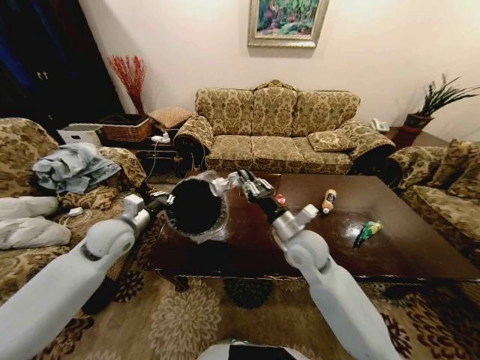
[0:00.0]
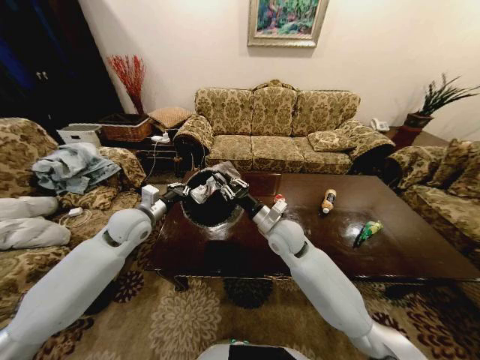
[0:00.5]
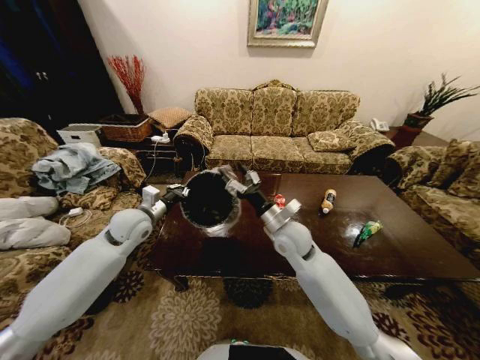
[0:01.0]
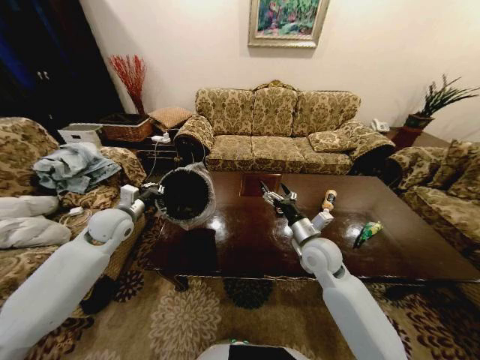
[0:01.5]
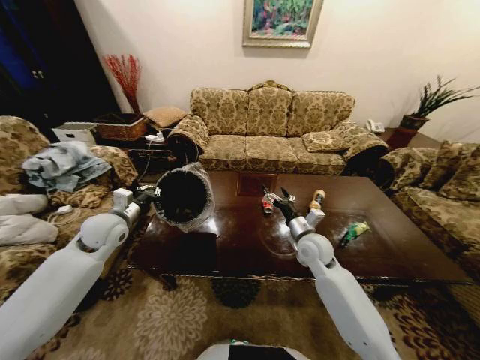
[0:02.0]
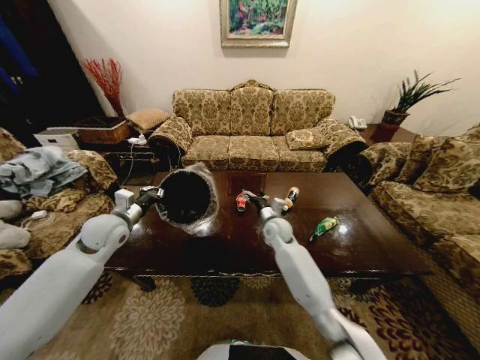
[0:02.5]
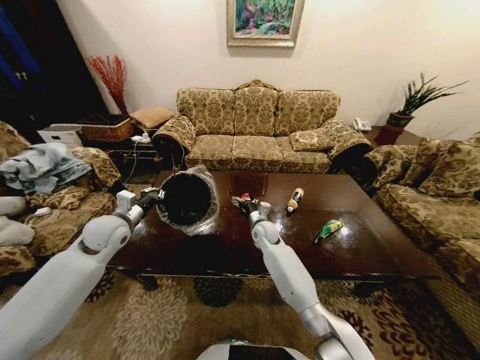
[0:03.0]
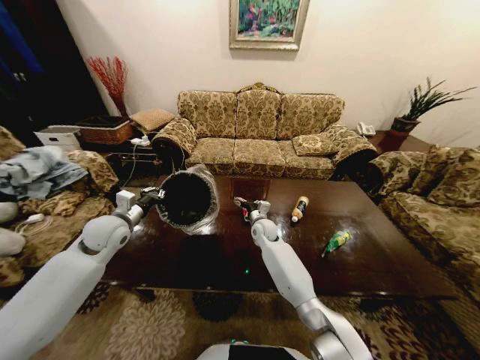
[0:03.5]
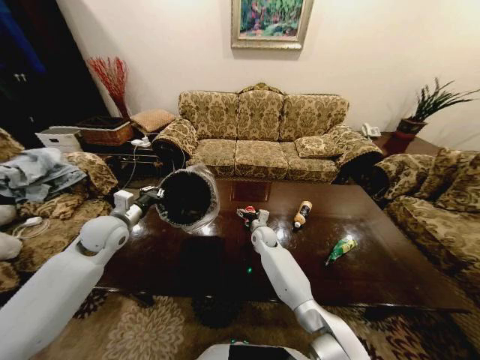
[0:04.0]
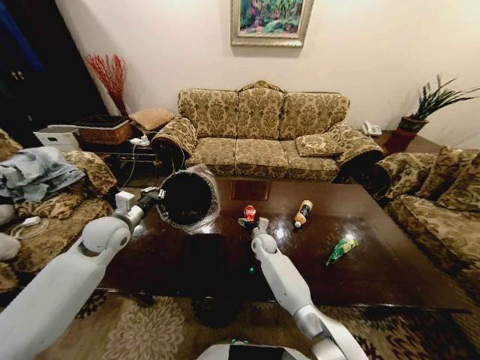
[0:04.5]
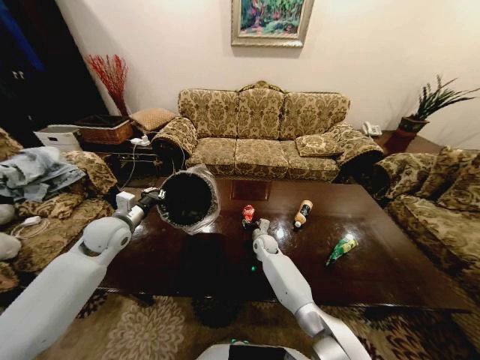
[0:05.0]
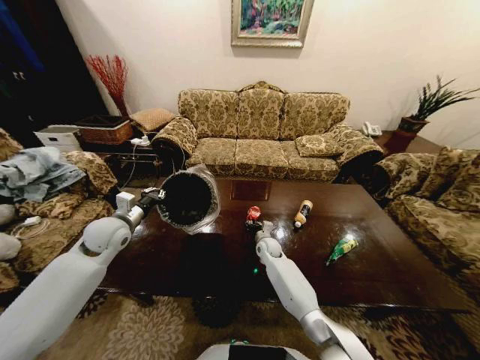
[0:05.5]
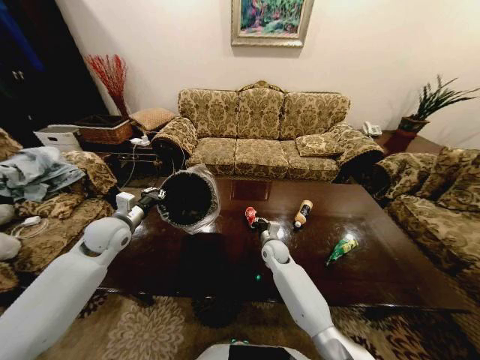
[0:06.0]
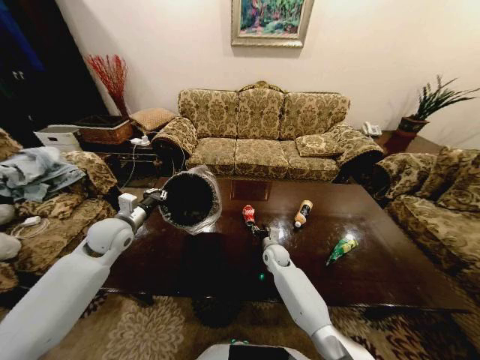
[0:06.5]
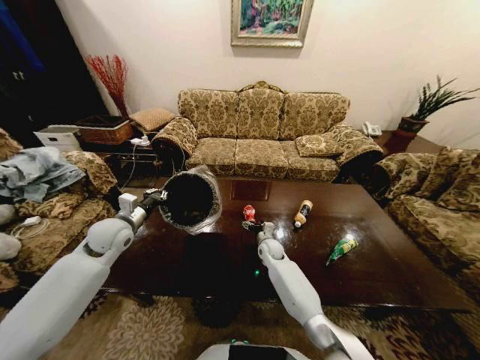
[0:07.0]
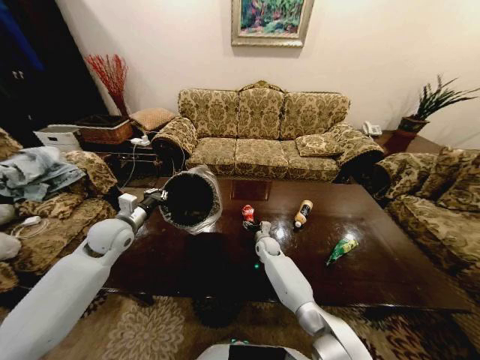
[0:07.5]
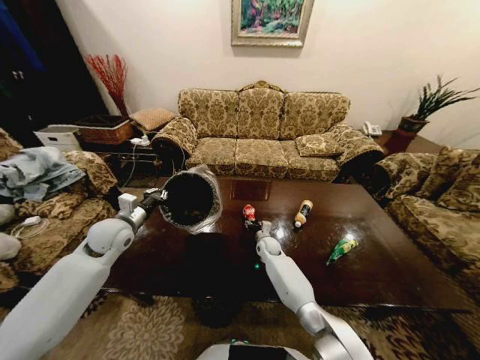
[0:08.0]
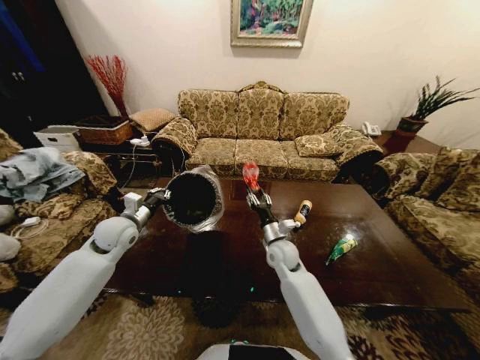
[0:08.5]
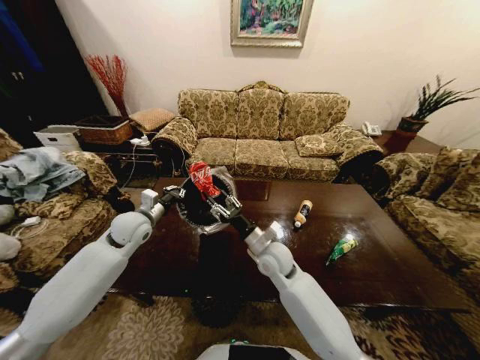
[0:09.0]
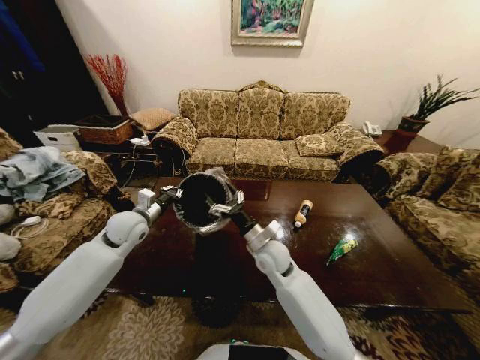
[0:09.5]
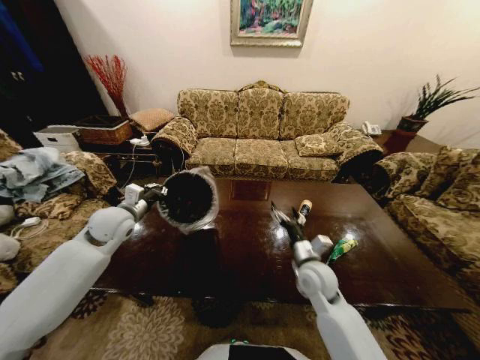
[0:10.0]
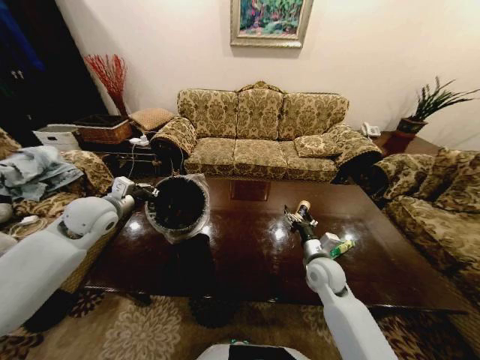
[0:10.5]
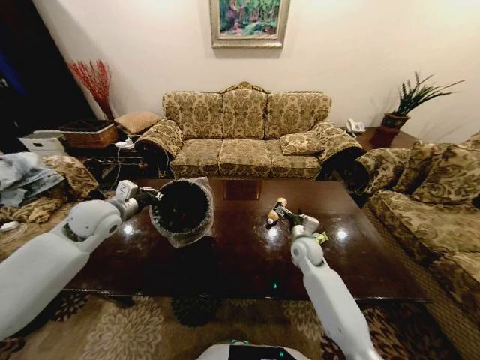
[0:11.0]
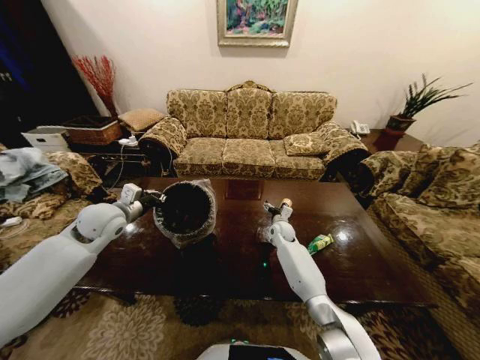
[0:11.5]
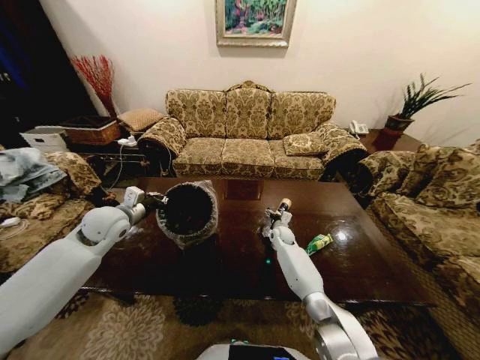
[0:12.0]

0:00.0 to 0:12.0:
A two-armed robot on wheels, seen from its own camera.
Task of the whole recording: Move to the front of the table and place the trash on the table into the trash bin.
0:00.0 to 0:02.0: The right gripper heads downward and to the right, covering some 10 cm, and opens.
0:02.0 to 0:04.0: The right gripper travels to the left, downward and forward by approximately 20 cm.
0:04.0 to 0:06.0: The right gripper travels backward by about 5 cm, and closes up.
0:06.0 to 0:08.0: The right gripper shifts about 5 cm downward, and opens.
0:08.0 to 0:10.0: The right gripper heads backward, upward and to the right, covering some 25 cm, and opens.
0:10.0 to 0:12.0: The right gripper goes some 25 cm forward and downward.

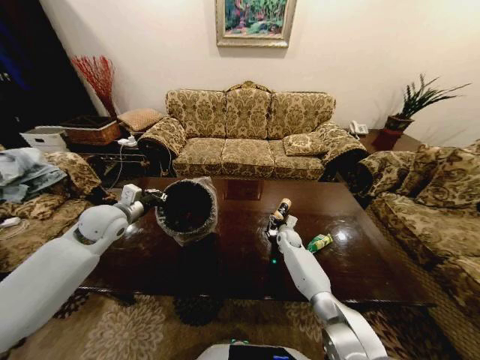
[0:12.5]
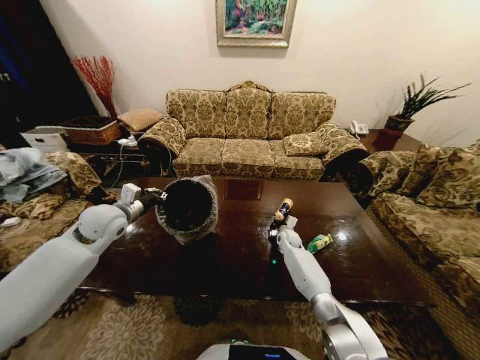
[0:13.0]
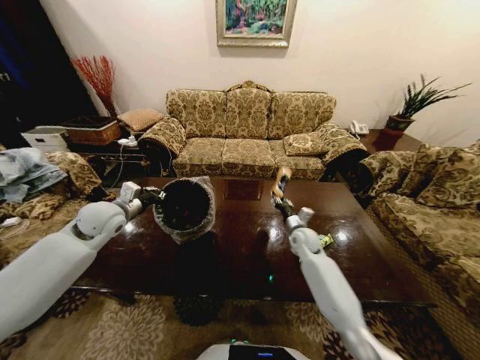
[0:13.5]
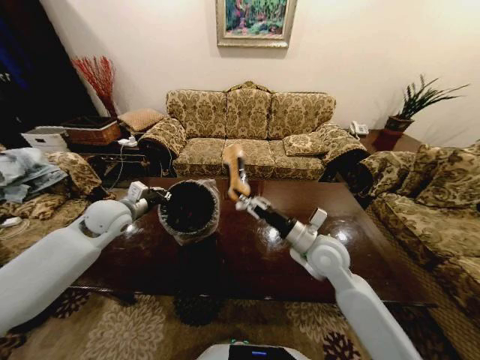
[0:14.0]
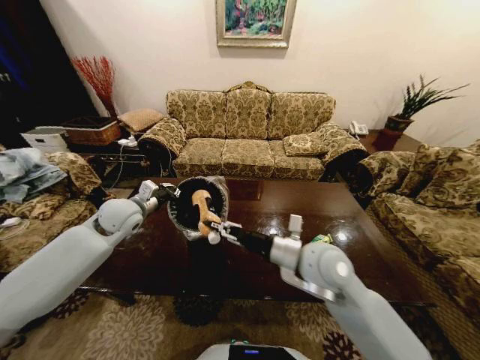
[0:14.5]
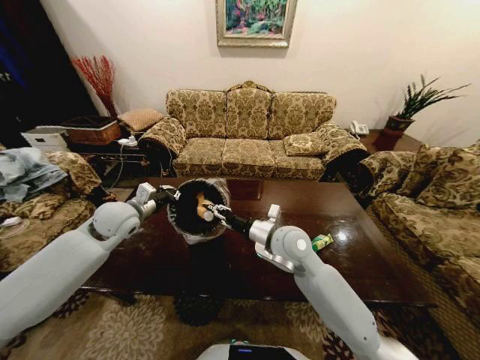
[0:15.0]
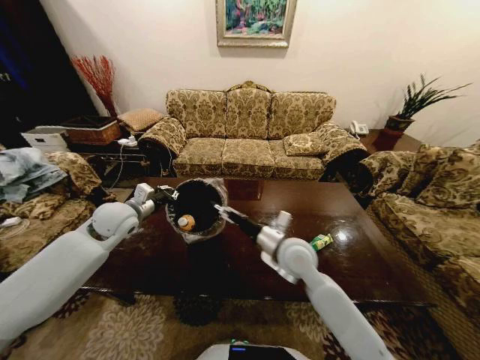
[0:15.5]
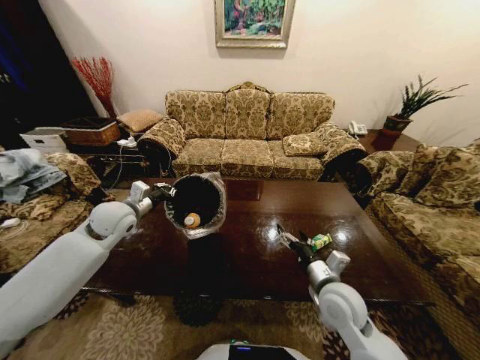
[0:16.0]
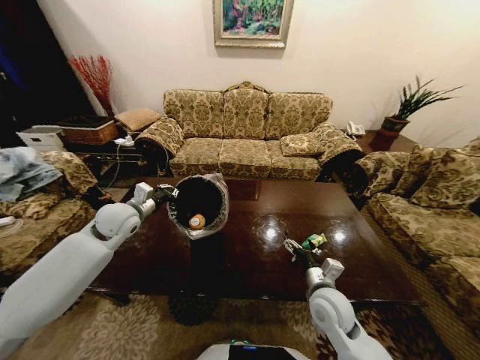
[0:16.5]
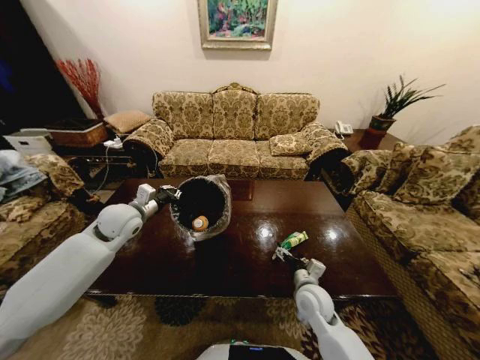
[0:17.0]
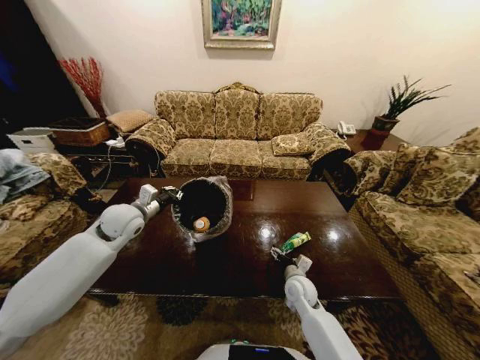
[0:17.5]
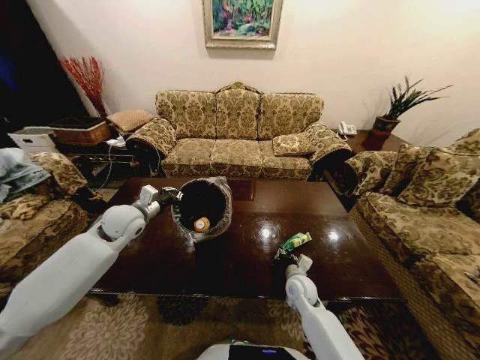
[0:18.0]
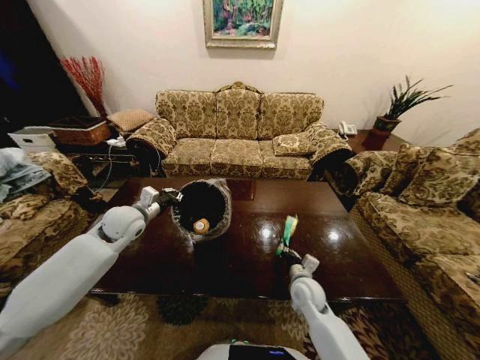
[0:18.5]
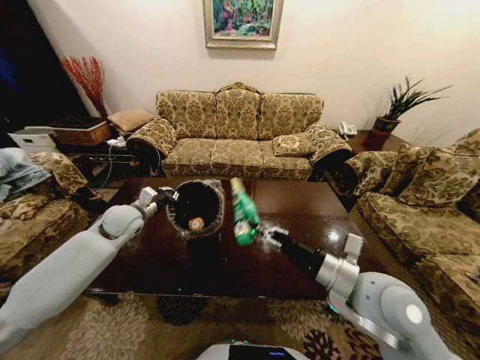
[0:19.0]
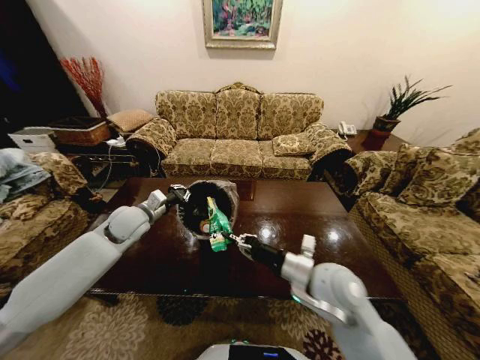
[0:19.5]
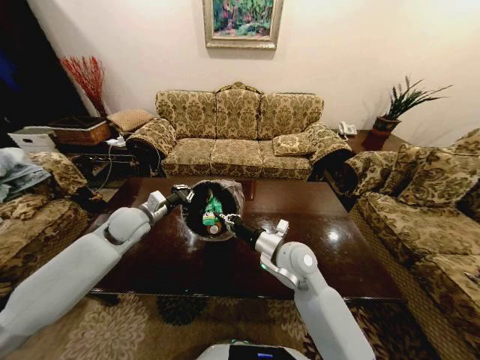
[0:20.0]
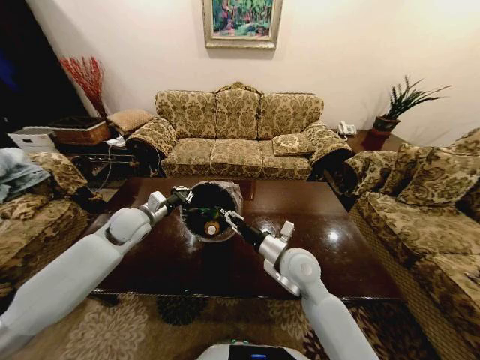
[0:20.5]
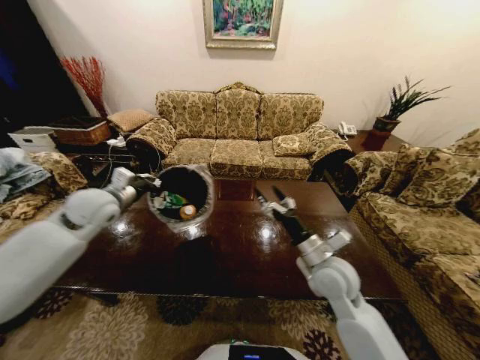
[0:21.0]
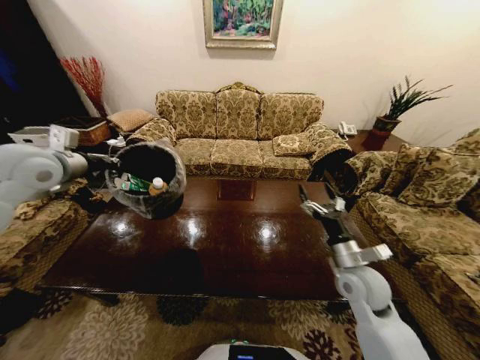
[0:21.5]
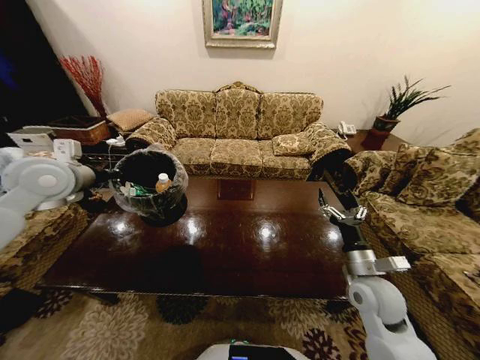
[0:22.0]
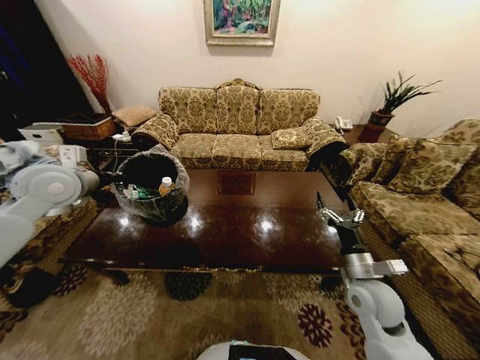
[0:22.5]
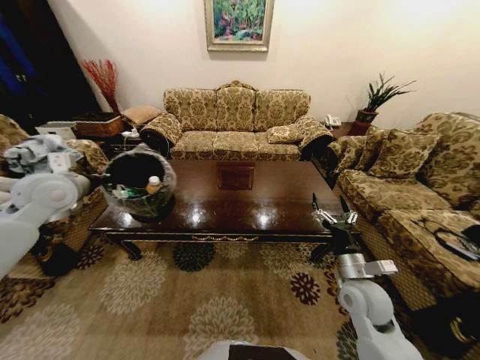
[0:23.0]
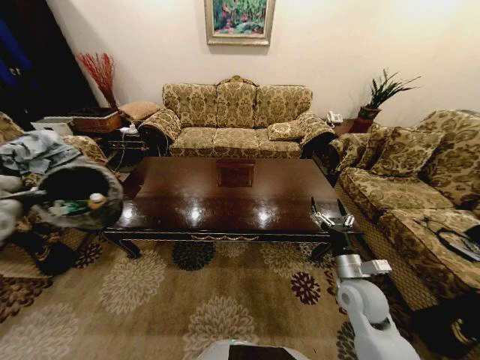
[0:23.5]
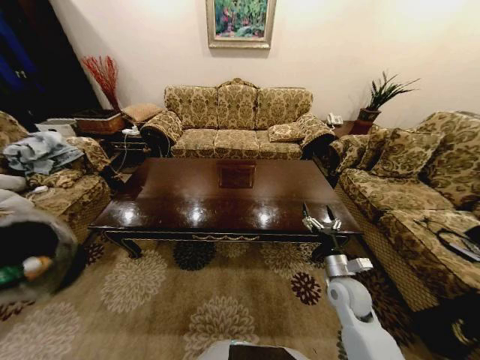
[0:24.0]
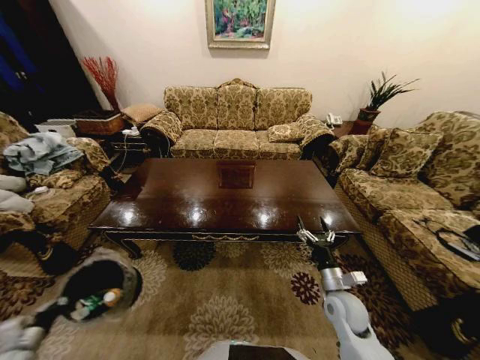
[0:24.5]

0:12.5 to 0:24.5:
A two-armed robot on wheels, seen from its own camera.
Task of the whole recording: Move to the front of the table and place the trash on the table into the trash bin.
0:12.5 to 0:14.5: The right gripper goes some 40 cm upward and backward, and closes up.
0:14.5 to 0:16.5: The right gripper is displaced downward and to the right by about 15 cm, and opens its fingers.
0:16.5 to 0:18.5: The right gripper moves downward and forward, approximately 10 cm, and closes up.
0:18.5 to 0:20.5: The right gripper shifts about 15 cm upward and to the left, and opens.
0:20.5 to 0:22.5: The left gripper travels upward and to the left by roughly 20 cm, while the right gripper moves to the right, roughly 15 cm, and opens.
0:22.5 to 0:24.5: The right gripper is displaced downward by about 10 cm. The left gripper travels downward, backward and to the left by approximately 50 cm.

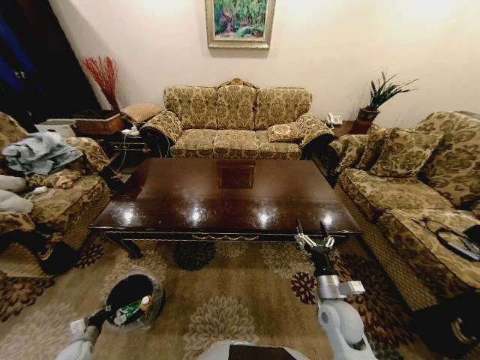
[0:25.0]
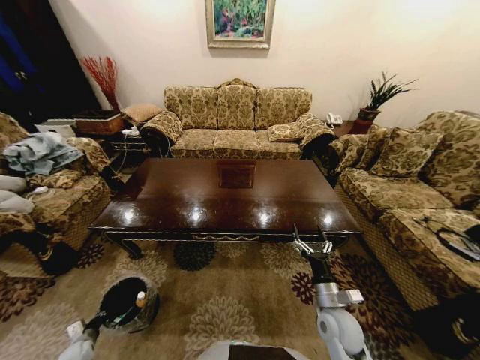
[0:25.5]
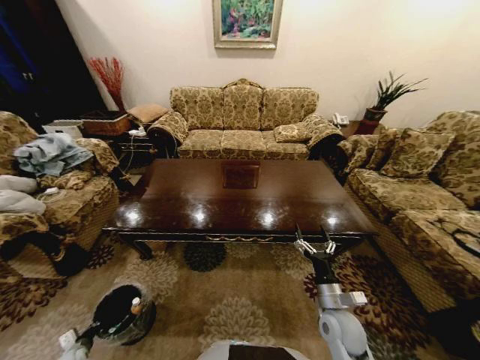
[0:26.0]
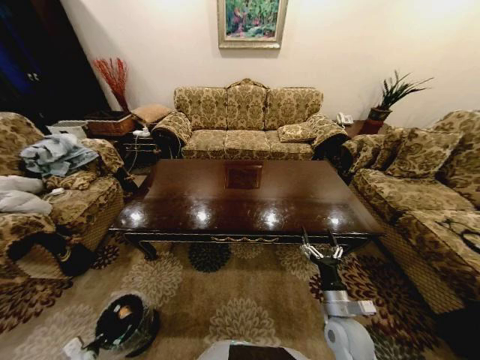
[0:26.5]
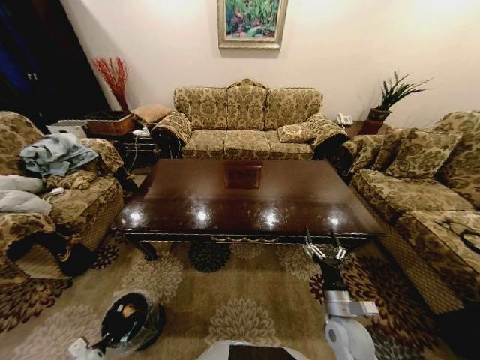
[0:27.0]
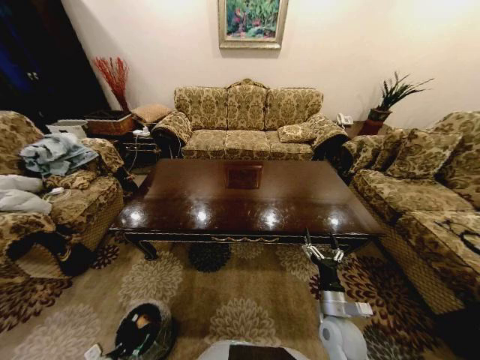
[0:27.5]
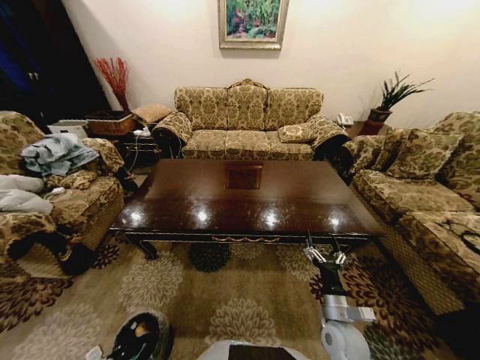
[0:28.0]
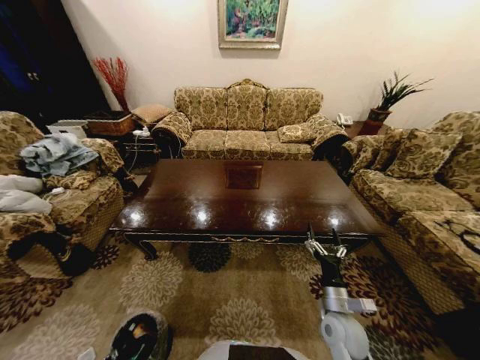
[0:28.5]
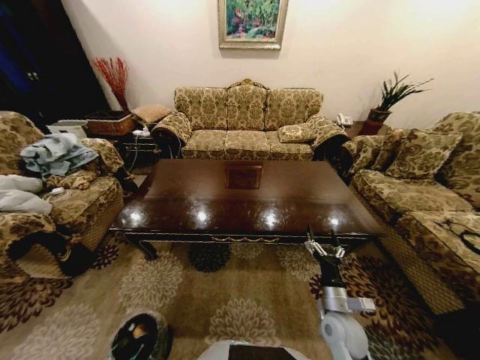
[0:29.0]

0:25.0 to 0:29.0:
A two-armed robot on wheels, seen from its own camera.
Task of the whole recording: Move to the front of the table and place the trash on the table into the trash bin.
0:25.0 to 0:27.0: The left gripper moves roughly 5 cm.
0:27.0 to 0:29.0: The left gripper is displaced backward and upward by roughly 10 cm, and opens.
